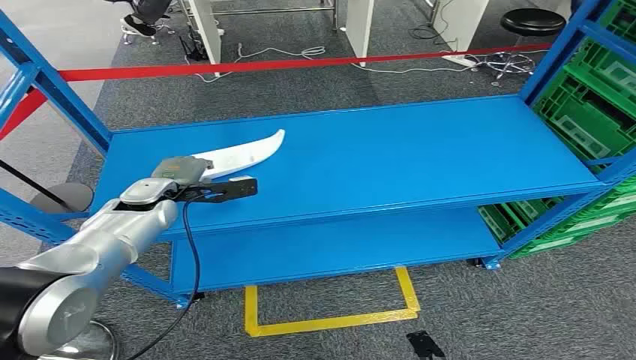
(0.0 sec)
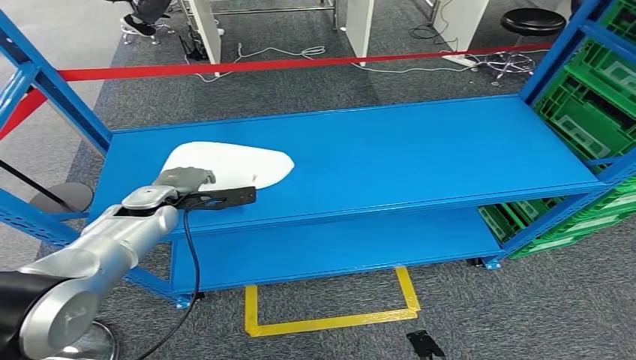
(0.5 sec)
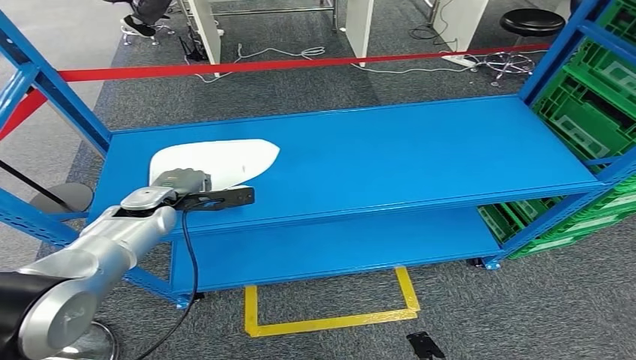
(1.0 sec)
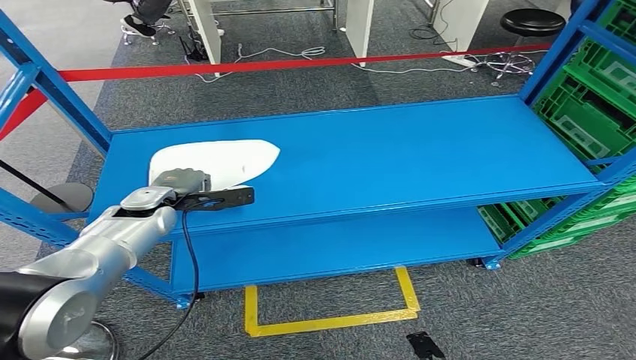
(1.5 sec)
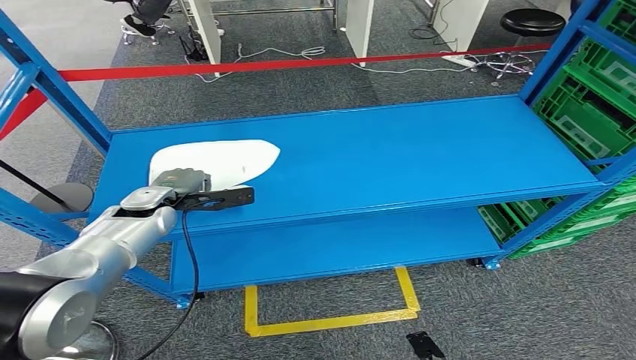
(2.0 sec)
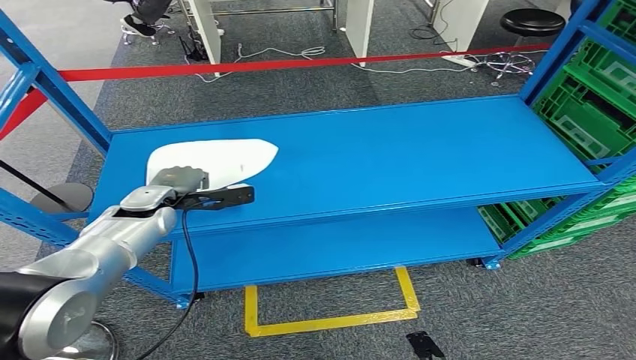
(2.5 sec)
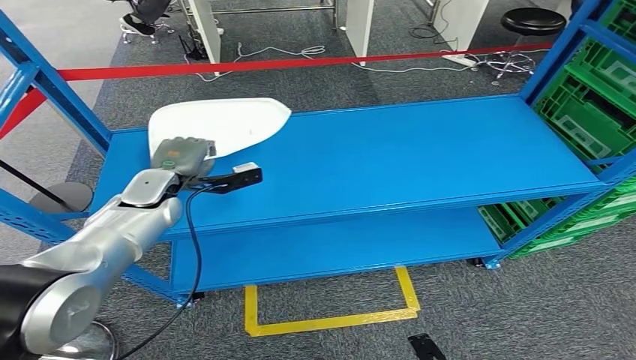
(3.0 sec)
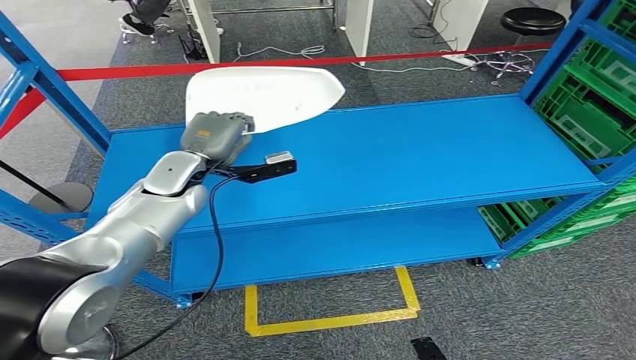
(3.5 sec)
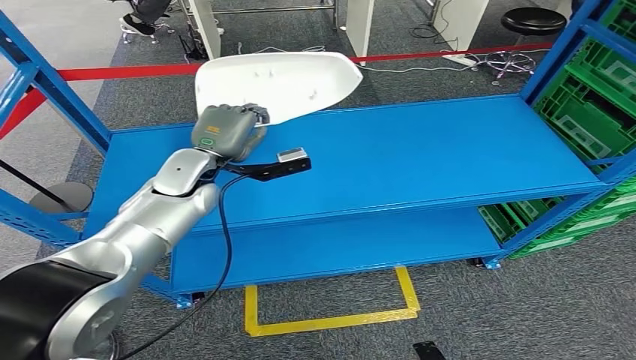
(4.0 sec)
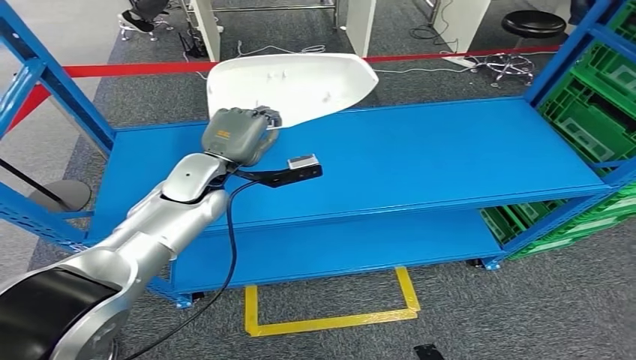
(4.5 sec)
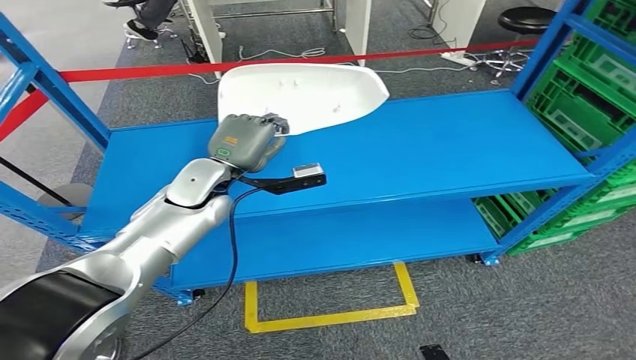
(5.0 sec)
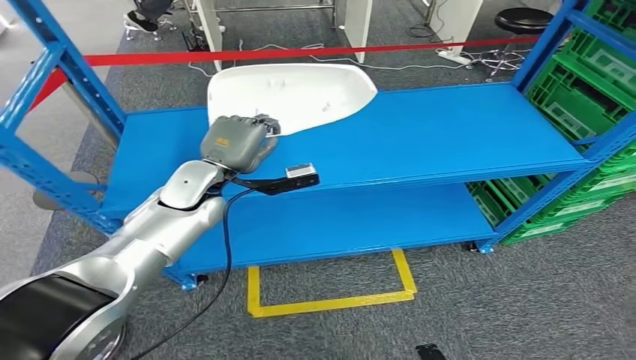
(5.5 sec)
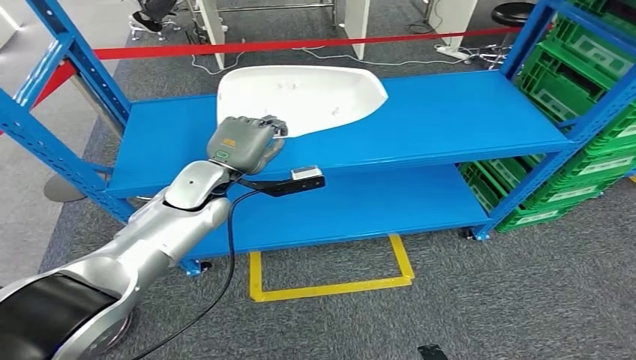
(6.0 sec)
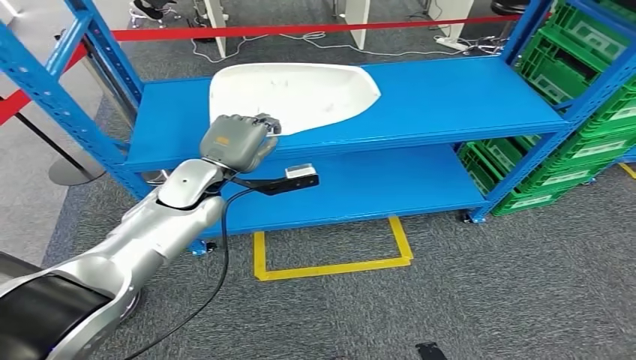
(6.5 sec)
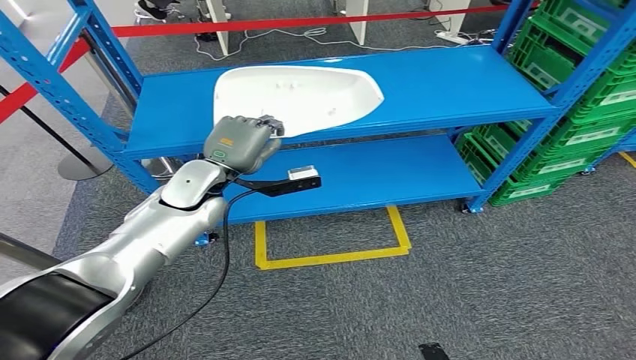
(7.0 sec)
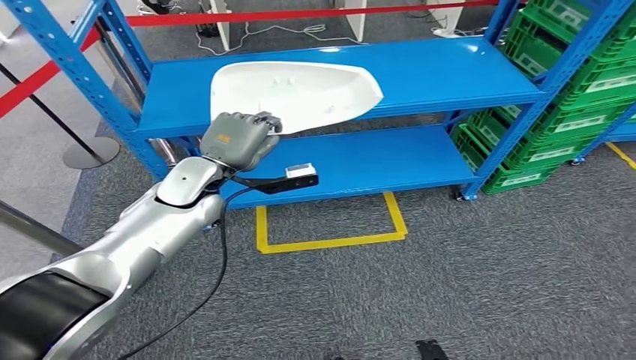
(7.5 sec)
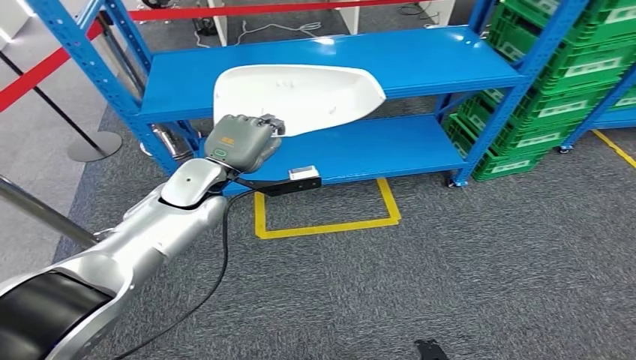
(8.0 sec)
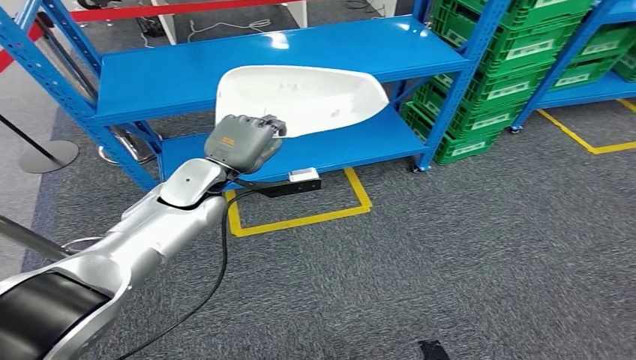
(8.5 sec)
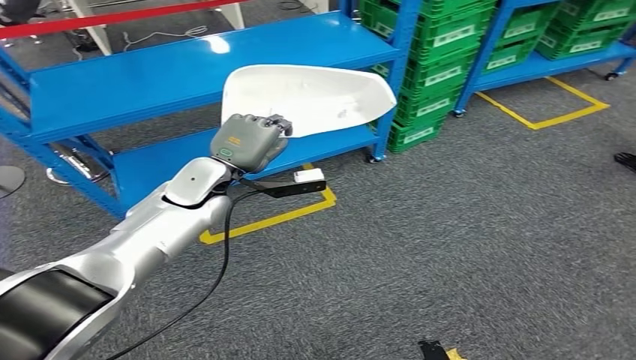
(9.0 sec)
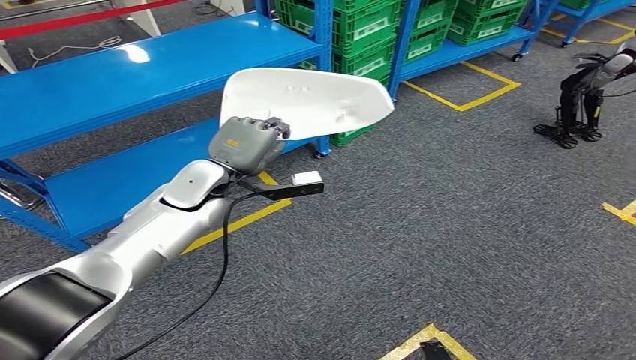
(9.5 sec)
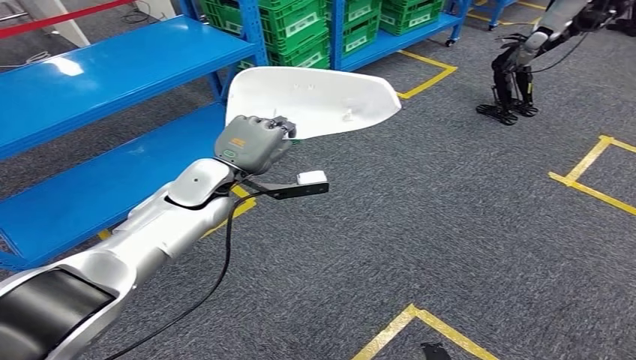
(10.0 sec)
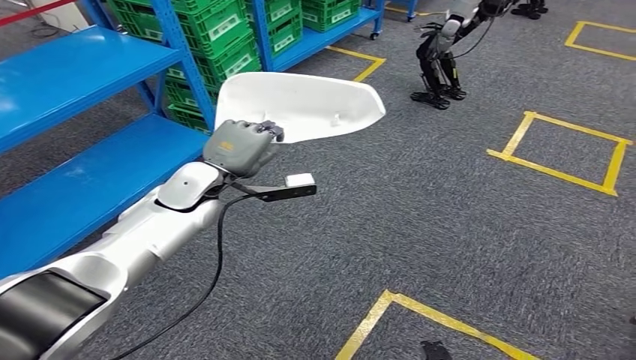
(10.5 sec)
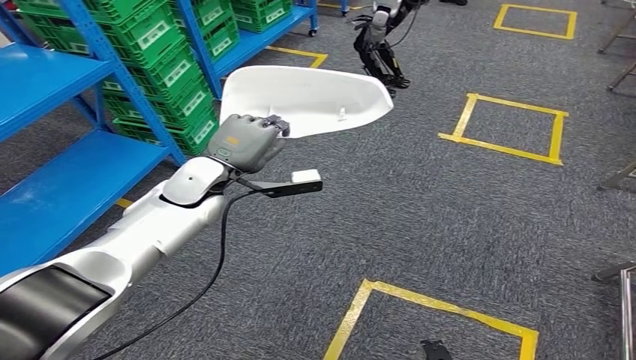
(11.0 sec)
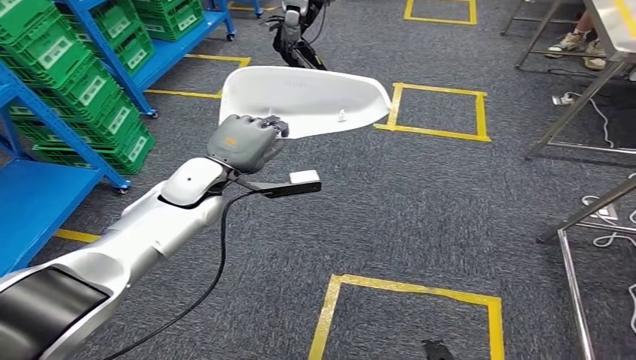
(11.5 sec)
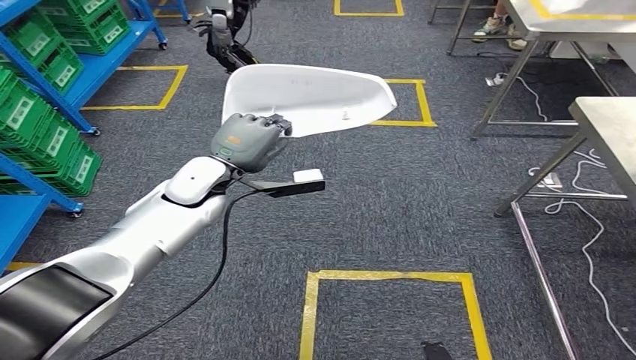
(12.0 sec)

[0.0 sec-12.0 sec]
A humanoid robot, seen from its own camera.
Step, 0.0 sec to 5.0 sec: Take small components from the rack.
2.0 sec to 4.0 sec: The left hand shifts approximately 15 cm to the right and upward.

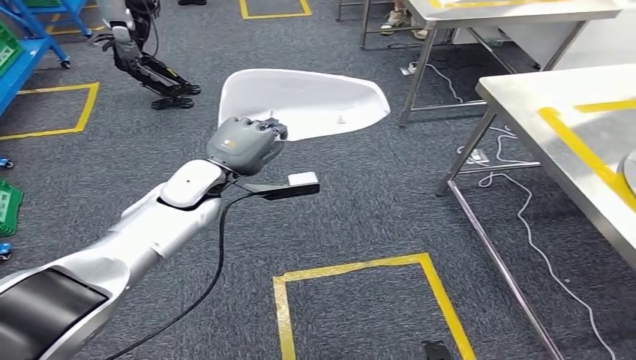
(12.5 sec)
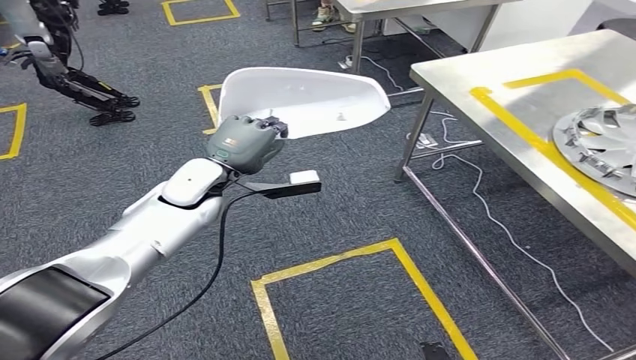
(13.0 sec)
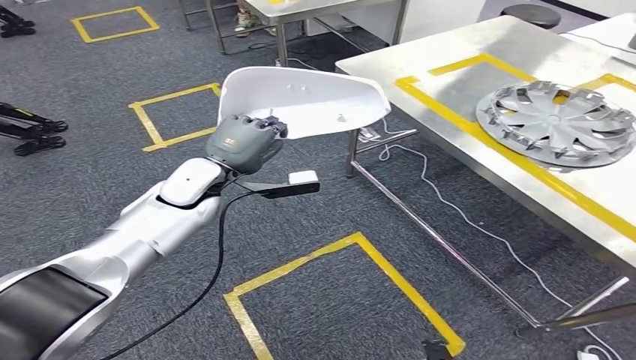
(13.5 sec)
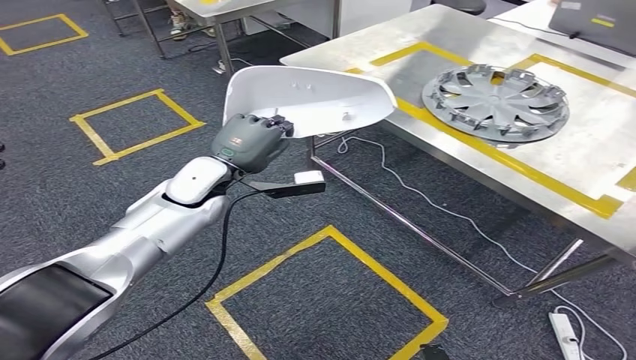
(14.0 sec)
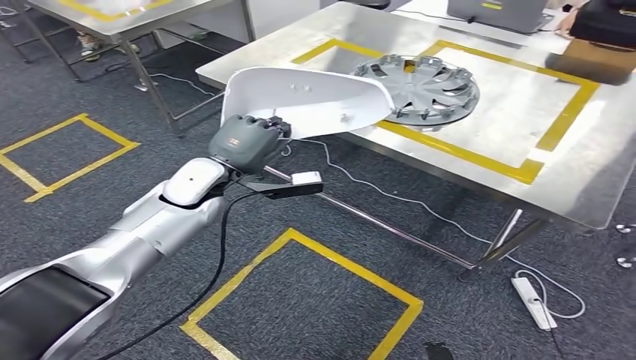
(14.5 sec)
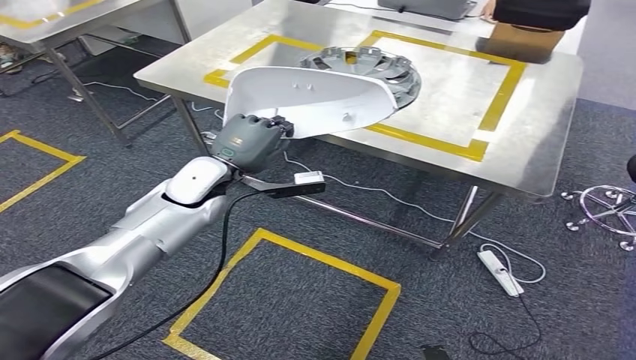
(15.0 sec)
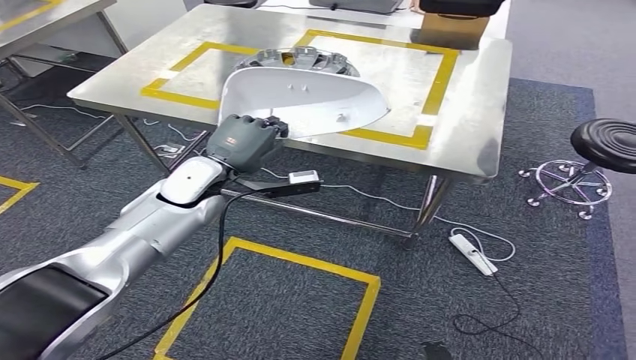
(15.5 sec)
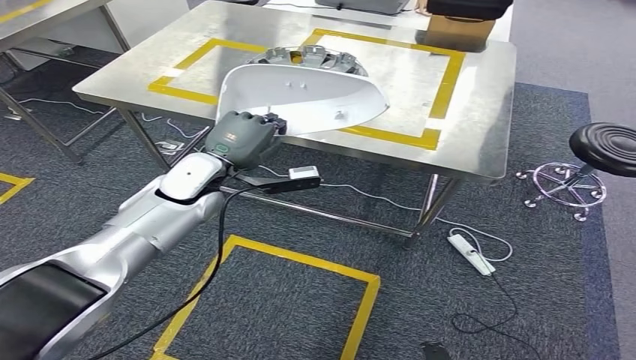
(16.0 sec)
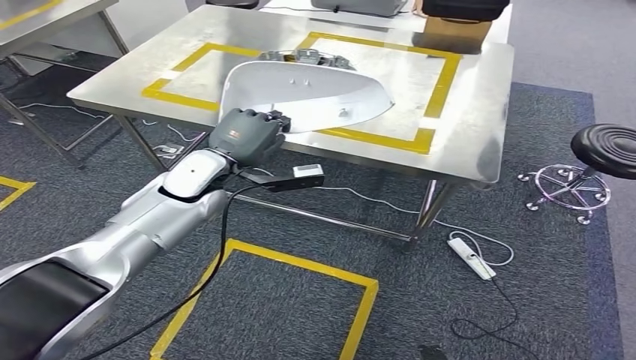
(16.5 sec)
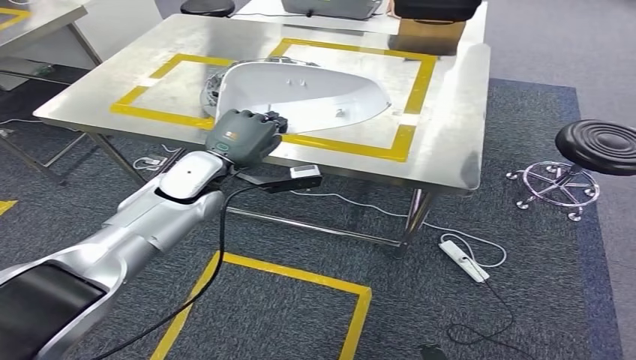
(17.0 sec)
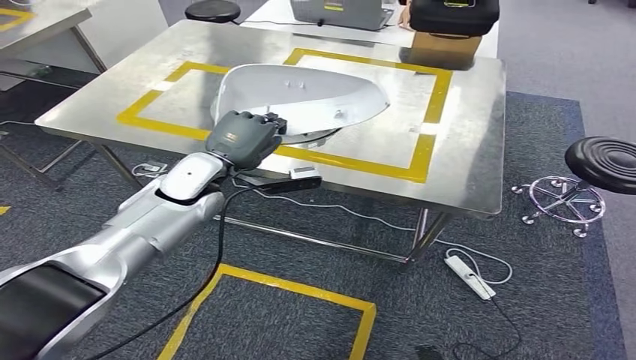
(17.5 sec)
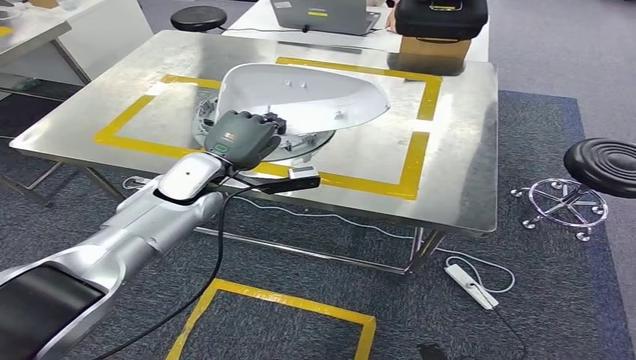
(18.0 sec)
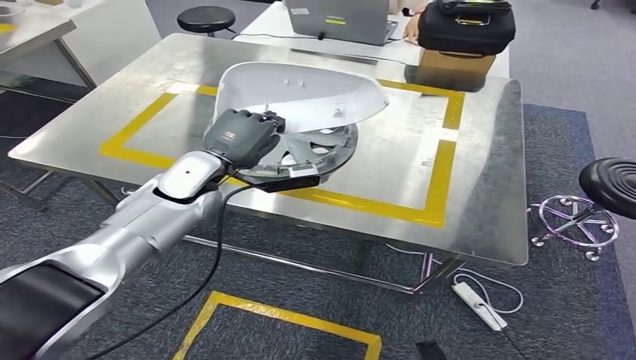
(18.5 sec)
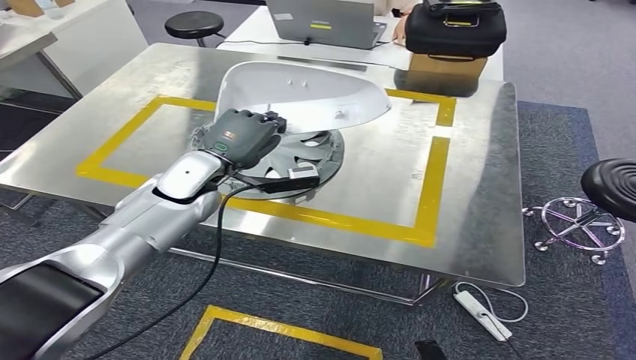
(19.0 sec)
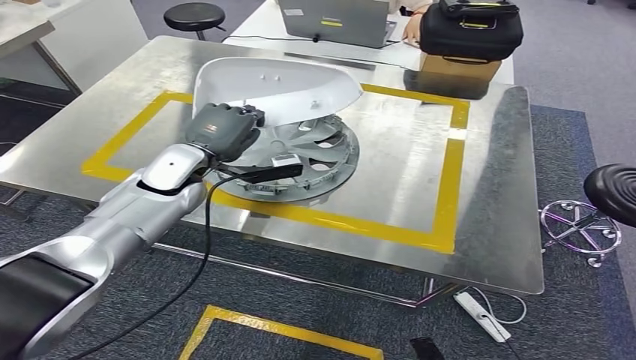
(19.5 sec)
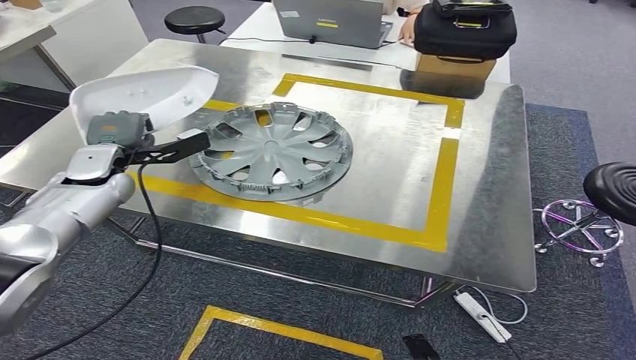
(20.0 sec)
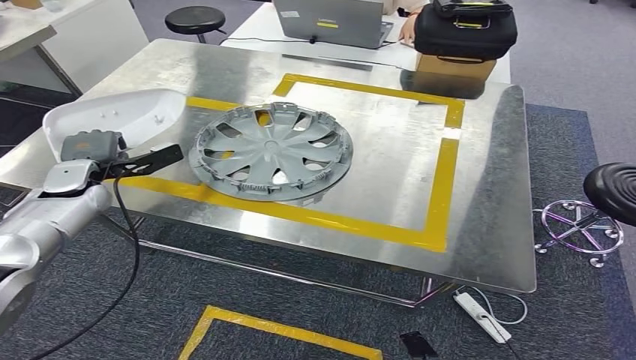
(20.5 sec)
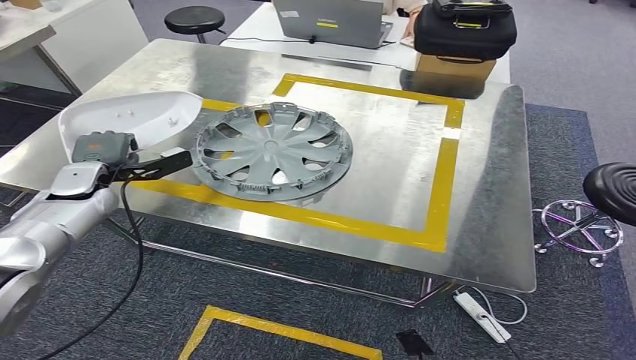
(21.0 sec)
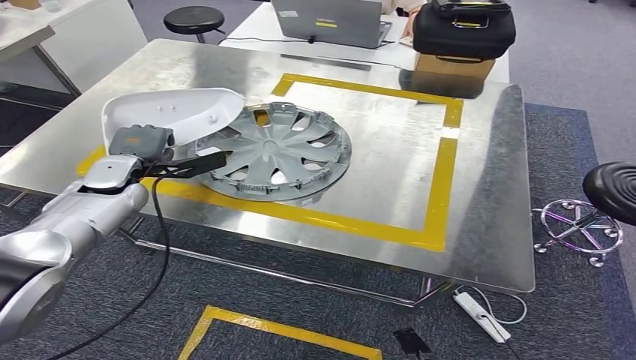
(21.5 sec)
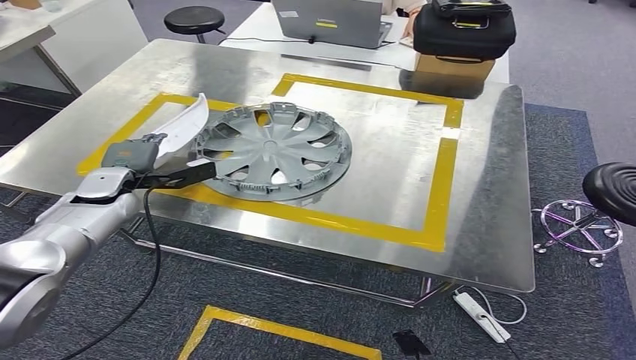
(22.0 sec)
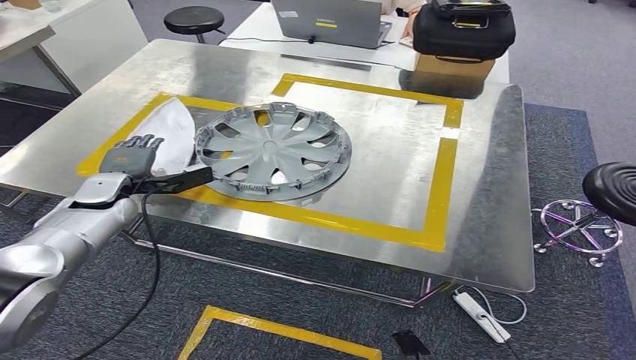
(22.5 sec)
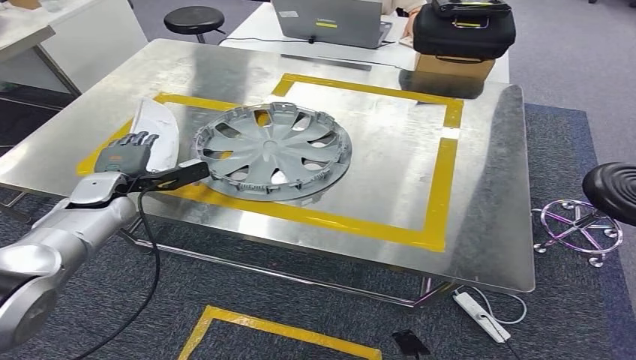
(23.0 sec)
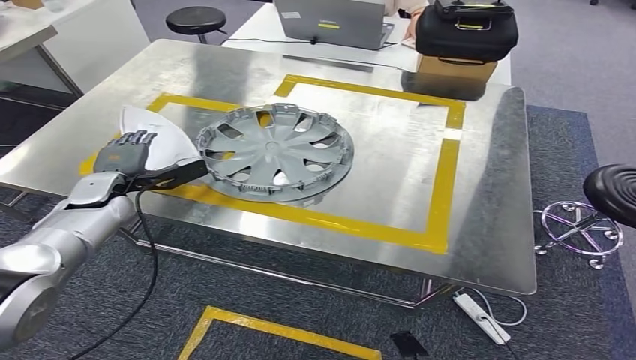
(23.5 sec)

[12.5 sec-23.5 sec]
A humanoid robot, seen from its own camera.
Step, 12.5 sec to 20.5 sec: Move the small parts to the workbench.
21.5 sec to 23.5 sec: The hands make only small movements.
